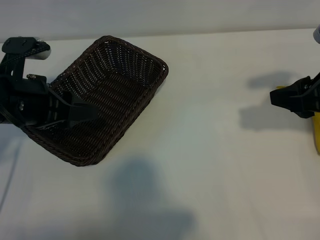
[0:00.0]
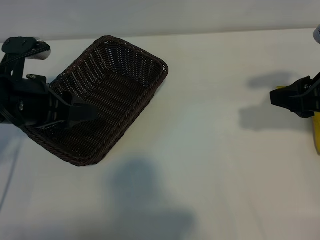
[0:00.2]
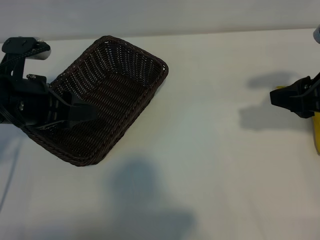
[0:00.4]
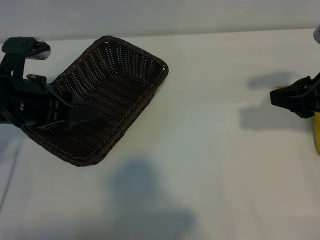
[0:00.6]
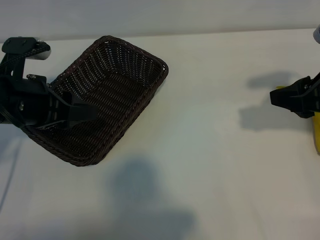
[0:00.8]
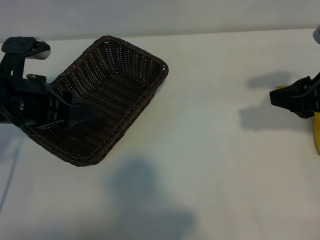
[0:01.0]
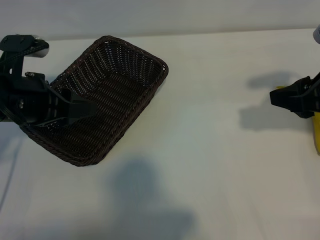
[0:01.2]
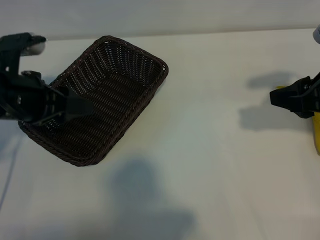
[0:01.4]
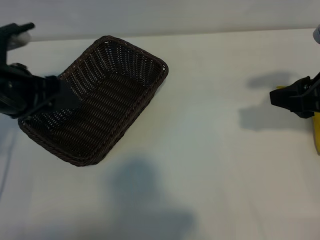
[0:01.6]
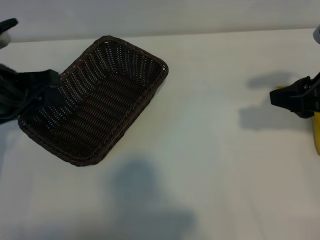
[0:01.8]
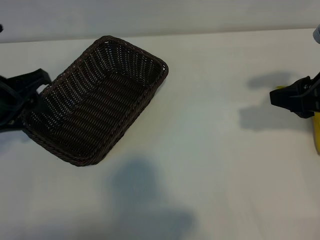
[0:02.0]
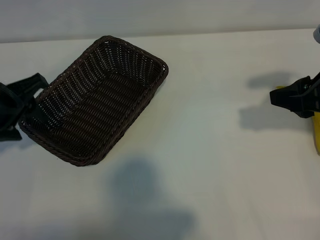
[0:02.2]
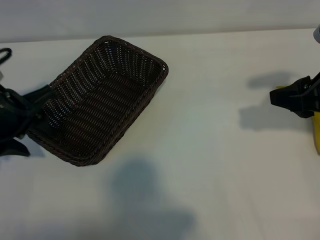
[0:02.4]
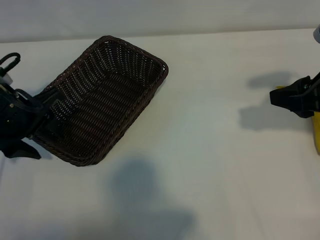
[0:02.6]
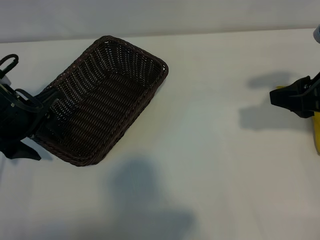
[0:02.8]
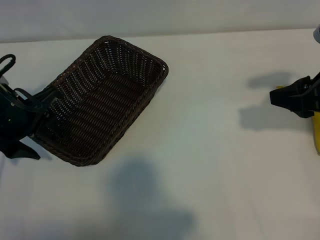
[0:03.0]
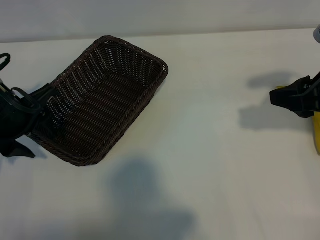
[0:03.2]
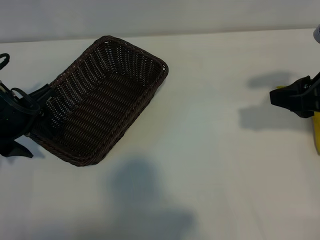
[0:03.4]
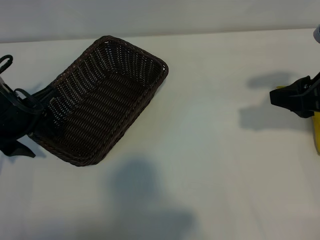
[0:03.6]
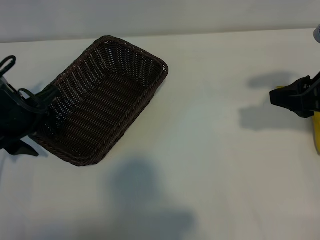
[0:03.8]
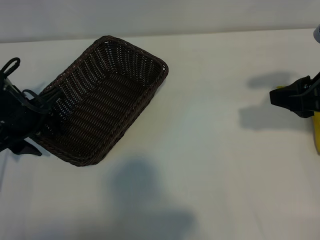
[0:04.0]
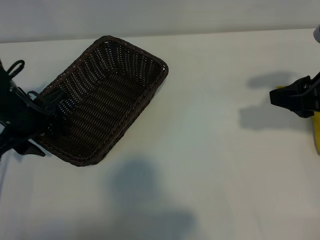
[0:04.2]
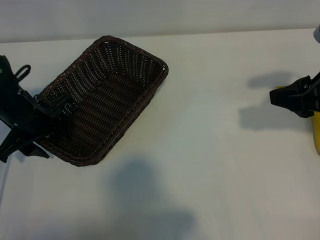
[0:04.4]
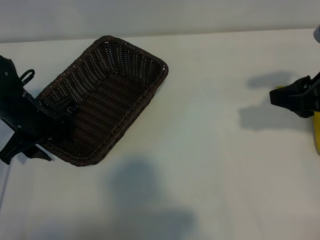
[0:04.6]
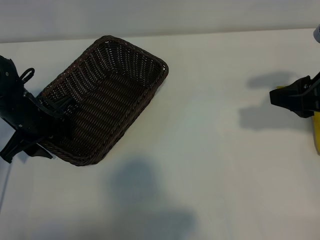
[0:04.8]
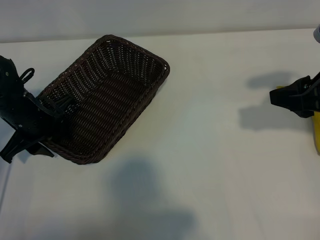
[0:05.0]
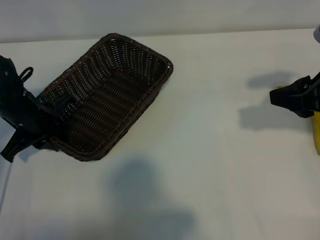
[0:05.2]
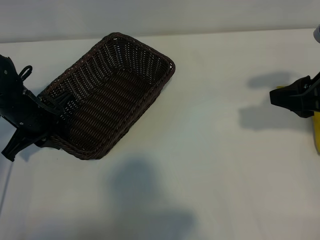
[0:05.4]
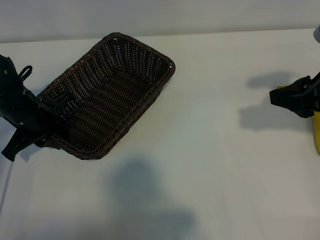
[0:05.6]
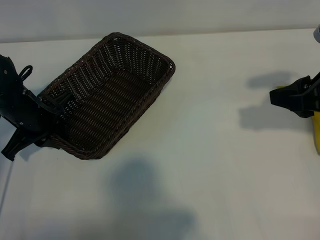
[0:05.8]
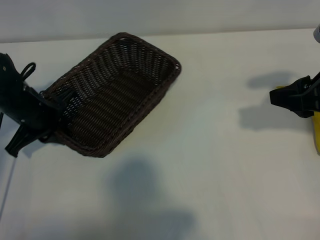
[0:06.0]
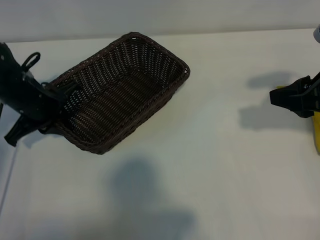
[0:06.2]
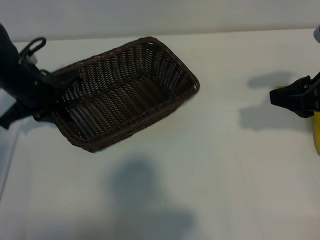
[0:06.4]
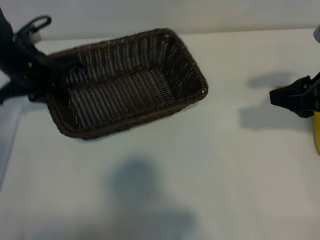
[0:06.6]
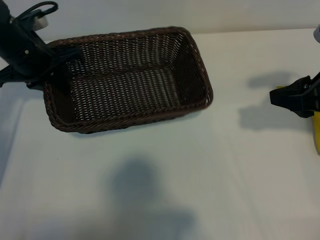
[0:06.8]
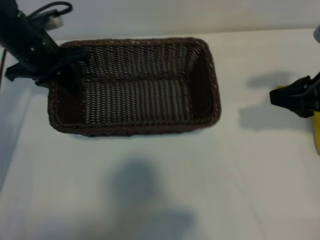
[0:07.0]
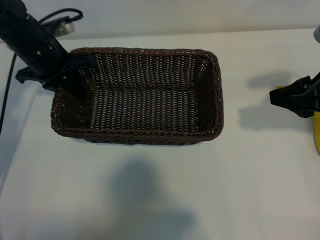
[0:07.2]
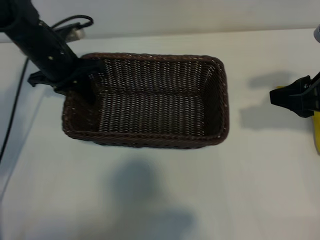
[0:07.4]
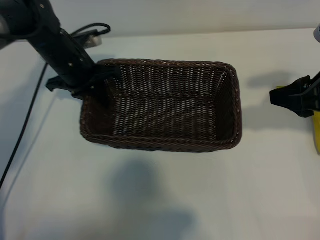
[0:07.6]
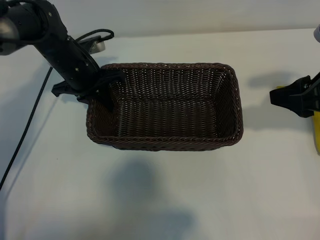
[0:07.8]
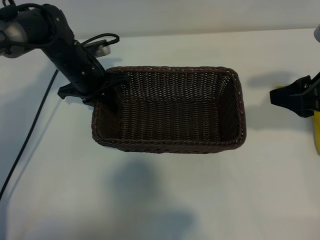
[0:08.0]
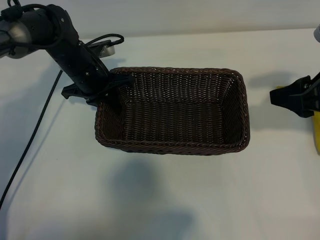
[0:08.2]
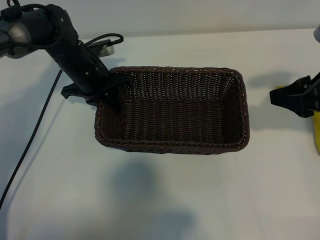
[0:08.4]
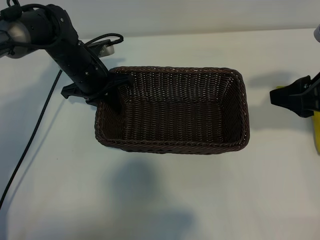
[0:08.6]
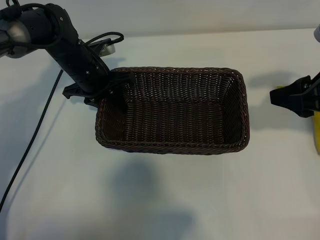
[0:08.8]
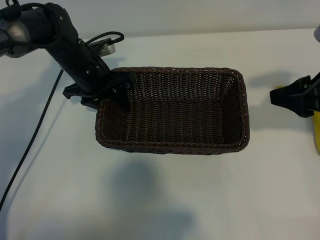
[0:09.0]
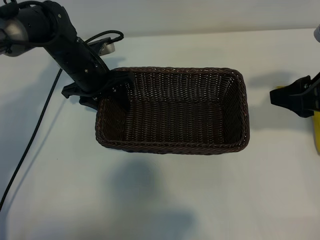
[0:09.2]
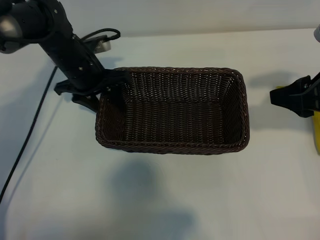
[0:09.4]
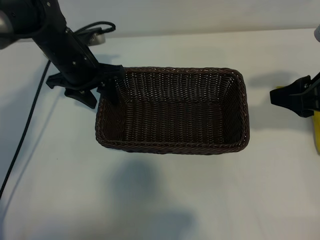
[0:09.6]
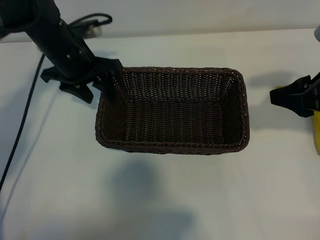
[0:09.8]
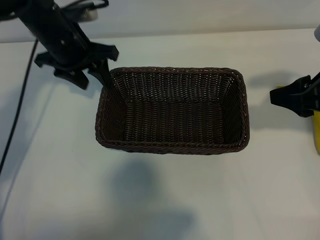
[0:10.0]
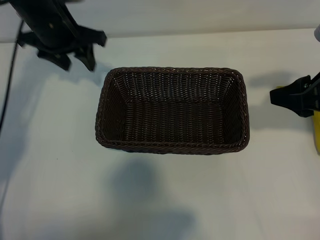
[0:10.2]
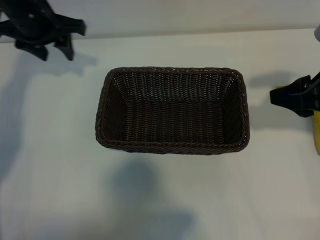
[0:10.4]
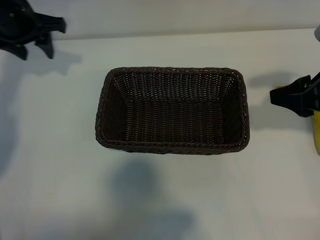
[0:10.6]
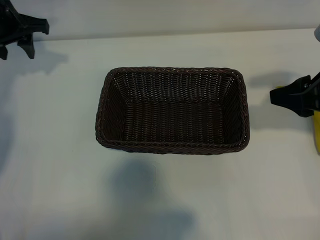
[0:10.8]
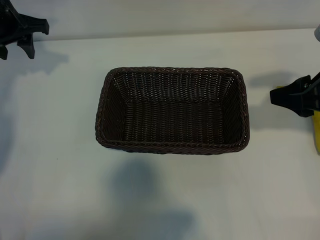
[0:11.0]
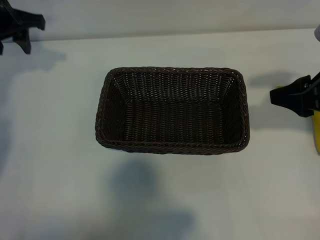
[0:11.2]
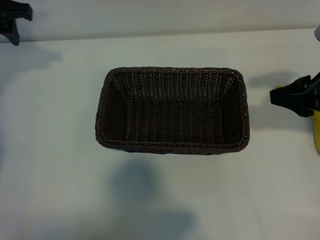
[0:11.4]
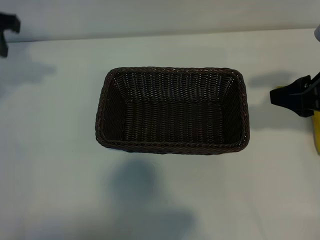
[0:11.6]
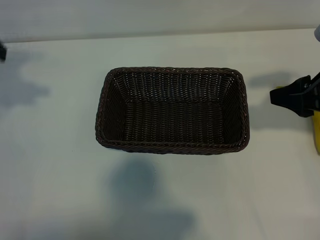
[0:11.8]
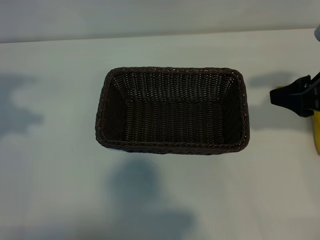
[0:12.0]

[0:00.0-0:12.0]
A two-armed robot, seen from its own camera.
Task of the whole recording: pick up the banana and put it into the basket.
Step, 0:01.0 to 0:05.6: Grasp the basket with the left gripper.
Step, 0:05.8 to 0:09.6: Place the basket in the center of the table with the left gripper.

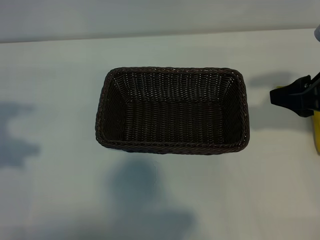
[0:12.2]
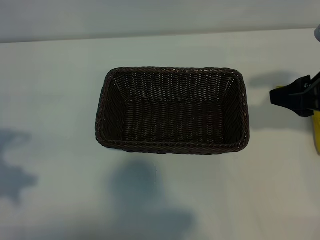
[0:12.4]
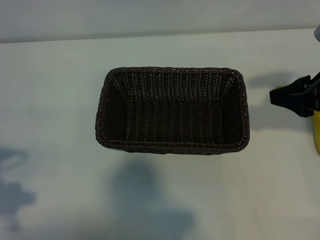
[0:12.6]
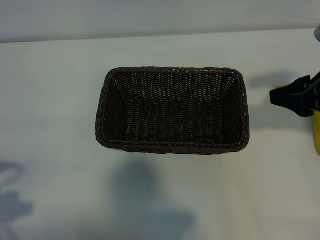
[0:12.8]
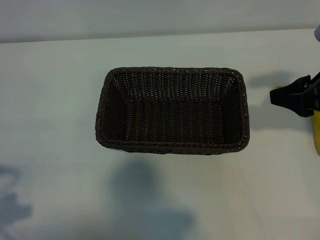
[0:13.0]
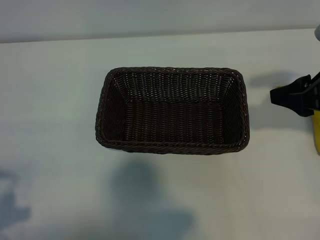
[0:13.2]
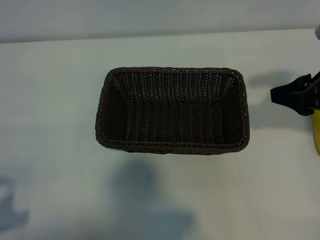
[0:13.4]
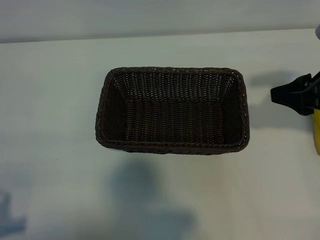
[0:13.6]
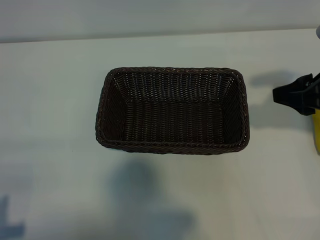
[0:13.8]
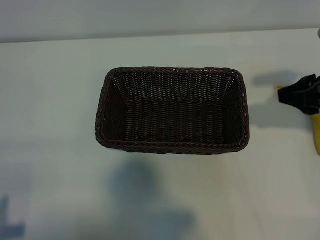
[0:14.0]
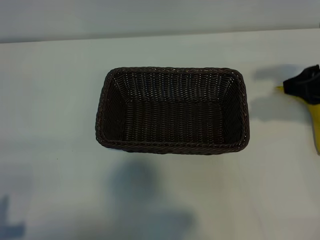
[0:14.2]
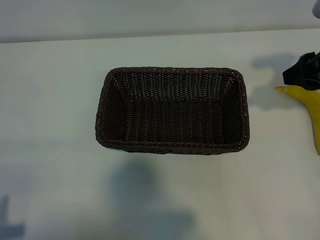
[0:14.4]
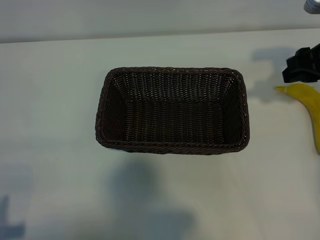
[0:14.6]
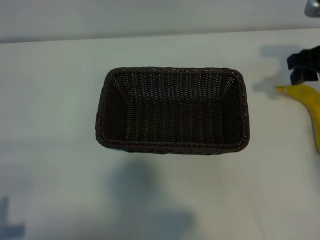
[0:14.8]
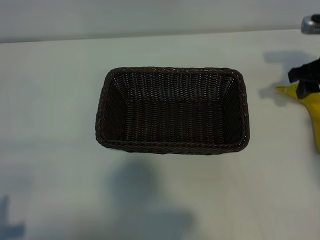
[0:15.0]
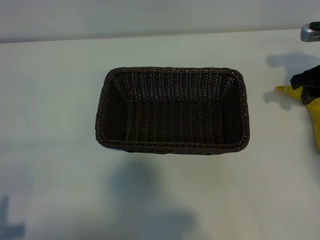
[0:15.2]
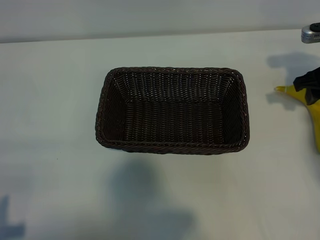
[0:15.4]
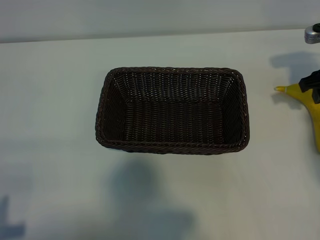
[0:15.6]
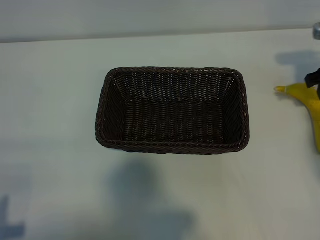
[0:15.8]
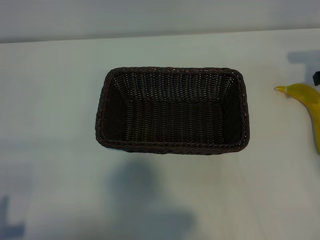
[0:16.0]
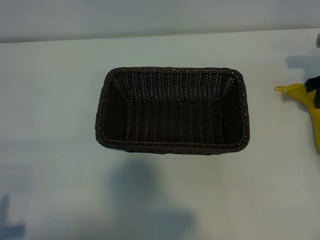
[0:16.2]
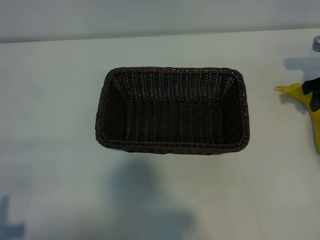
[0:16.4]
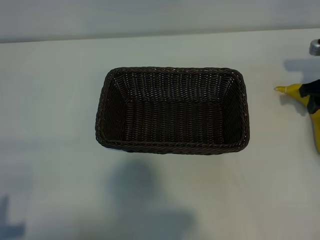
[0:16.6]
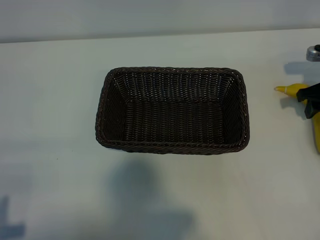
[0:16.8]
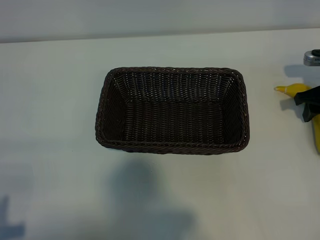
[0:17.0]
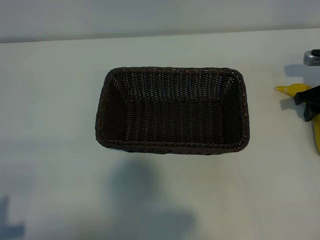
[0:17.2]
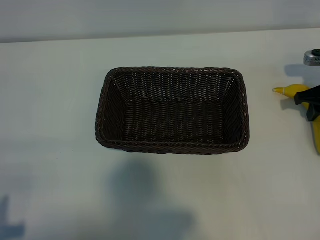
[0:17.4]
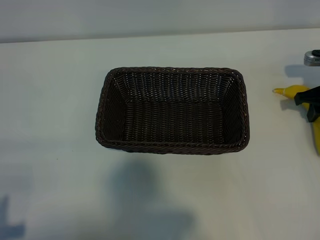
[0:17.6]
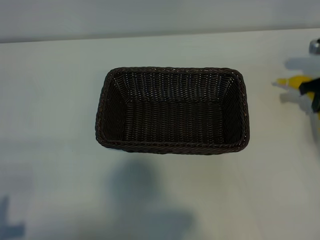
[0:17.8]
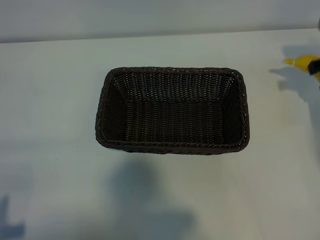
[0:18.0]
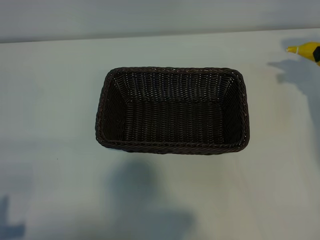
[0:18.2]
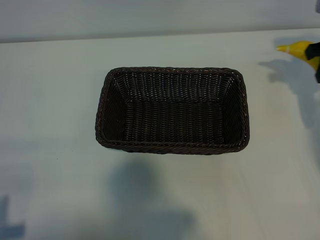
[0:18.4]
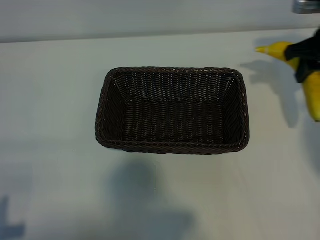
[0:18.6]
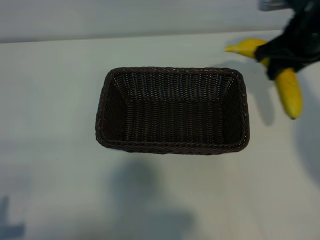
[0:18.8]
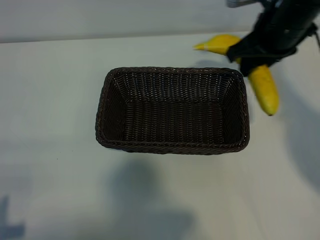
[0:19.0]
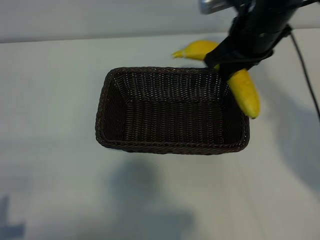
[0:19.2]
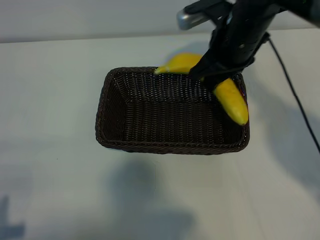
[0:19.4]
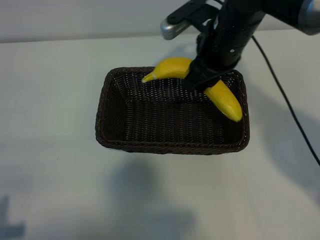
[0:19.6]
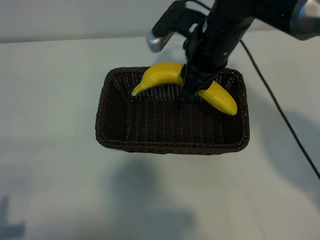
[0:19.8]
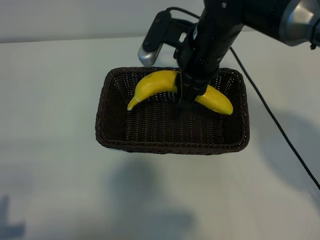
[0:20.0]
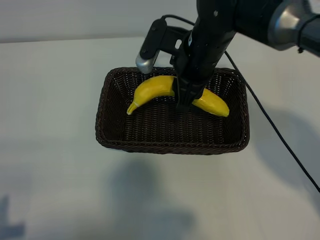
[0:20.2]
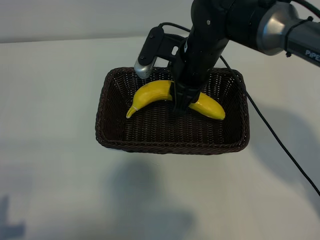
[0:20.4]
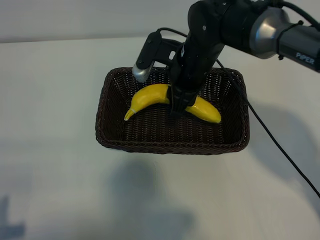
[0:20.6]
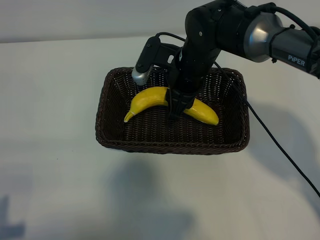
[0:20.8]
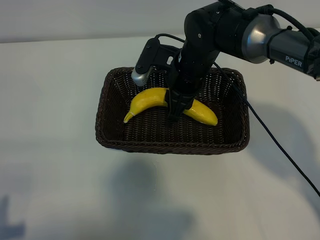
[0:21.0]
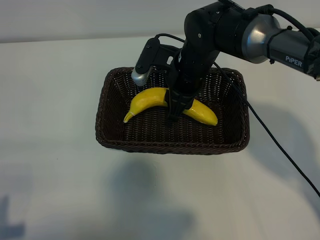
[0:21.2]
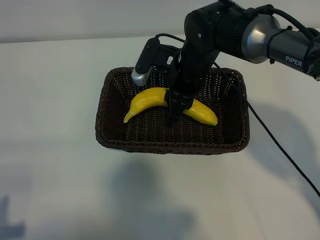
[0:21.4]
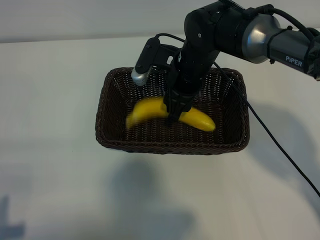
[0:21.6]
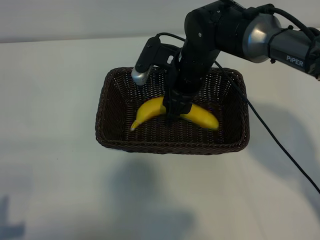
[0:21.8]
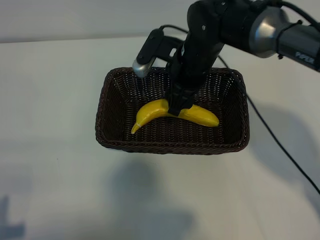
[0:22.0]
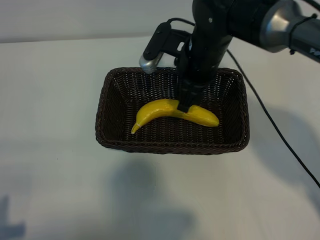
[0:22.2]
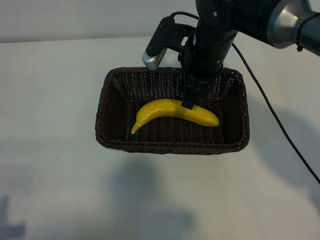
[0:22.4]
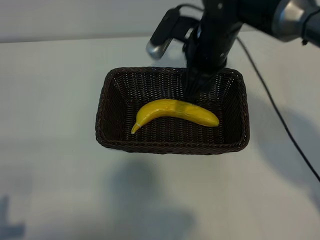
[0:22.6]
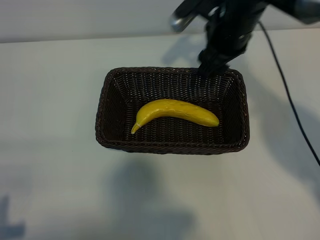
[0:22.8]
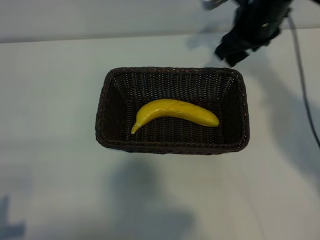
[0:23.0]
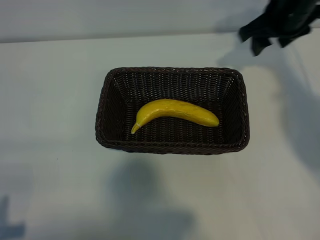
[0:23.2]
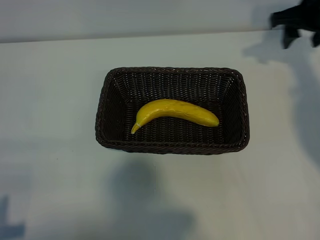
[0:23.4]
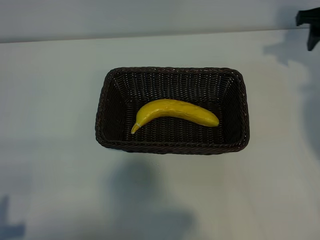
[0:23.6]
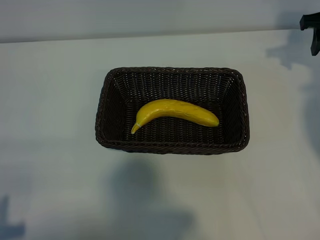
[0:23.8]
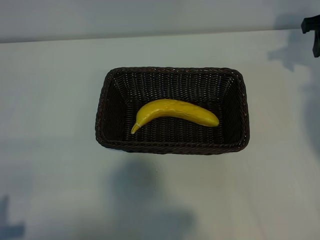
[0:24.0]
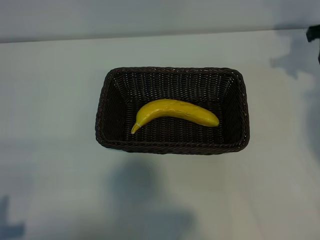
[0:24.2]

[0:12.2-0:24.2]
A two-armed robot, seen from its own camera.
Task of the whole recording: pick up the banana and put it into the basket.
Step, 0:12.2 to 0:17.2: Grasp the banana with right gripper.
Step, 0:17.6 to 0:22.2: Place the banana in the basket with right gripper.
